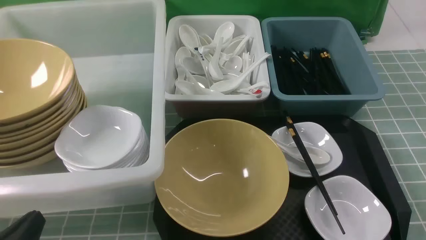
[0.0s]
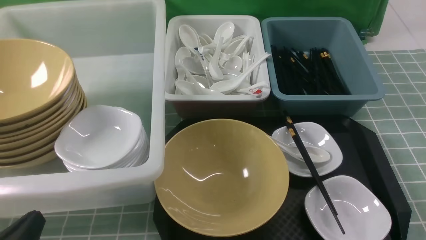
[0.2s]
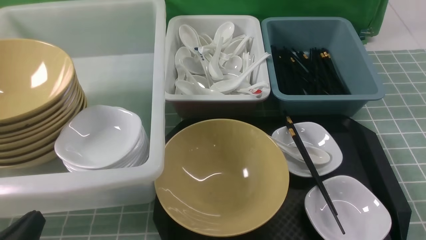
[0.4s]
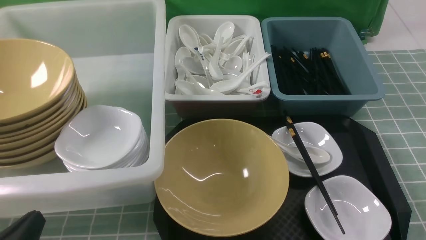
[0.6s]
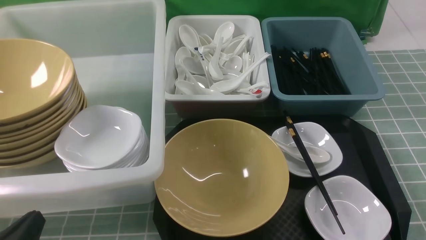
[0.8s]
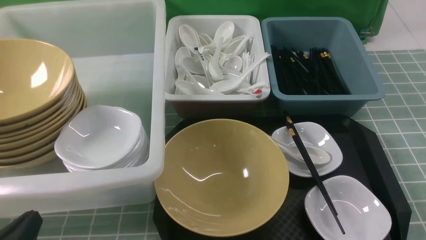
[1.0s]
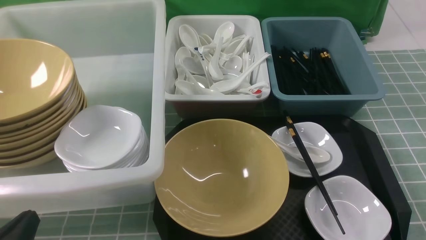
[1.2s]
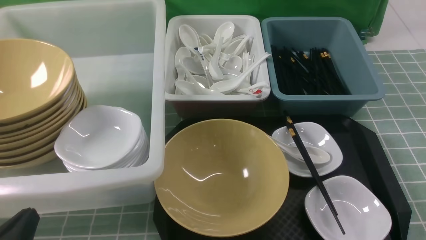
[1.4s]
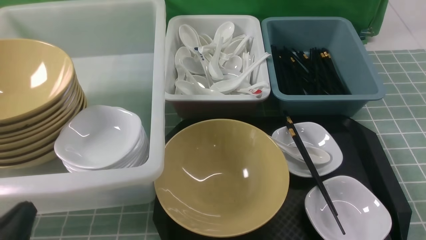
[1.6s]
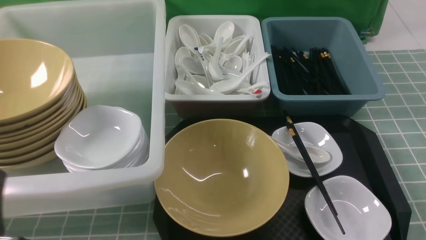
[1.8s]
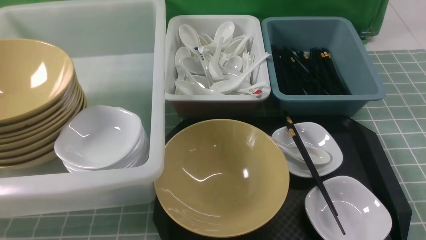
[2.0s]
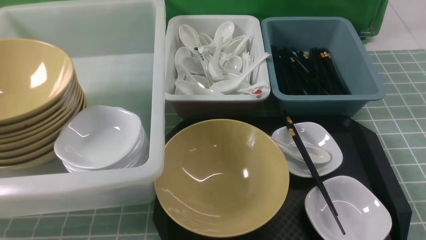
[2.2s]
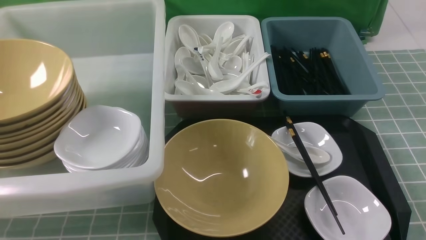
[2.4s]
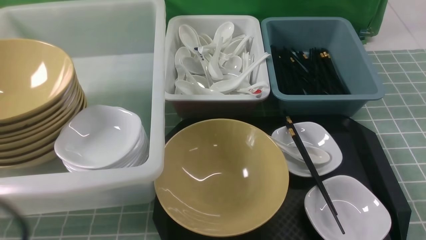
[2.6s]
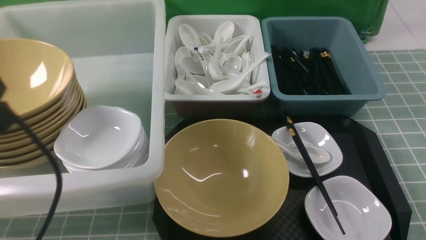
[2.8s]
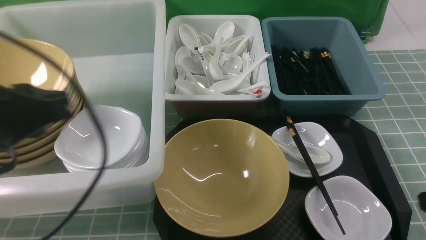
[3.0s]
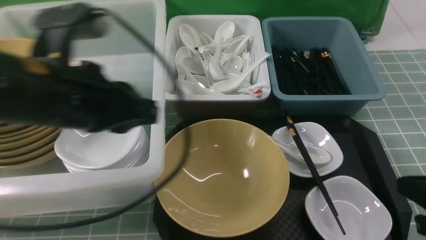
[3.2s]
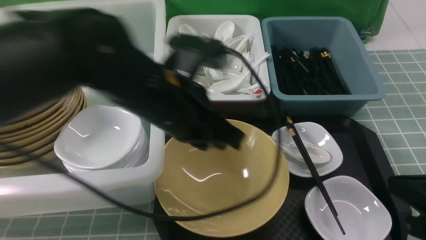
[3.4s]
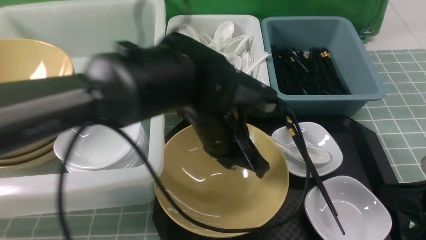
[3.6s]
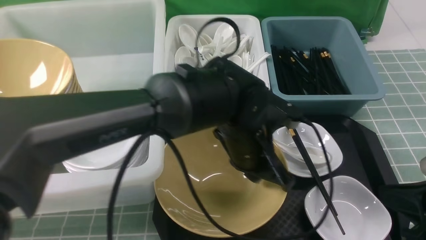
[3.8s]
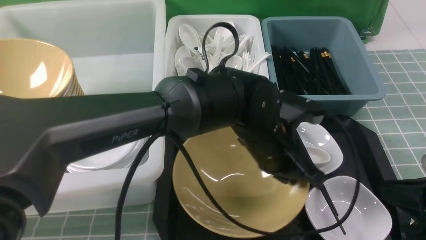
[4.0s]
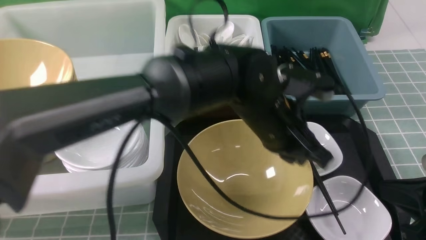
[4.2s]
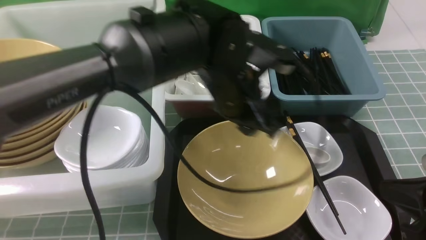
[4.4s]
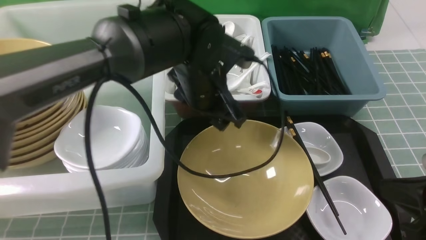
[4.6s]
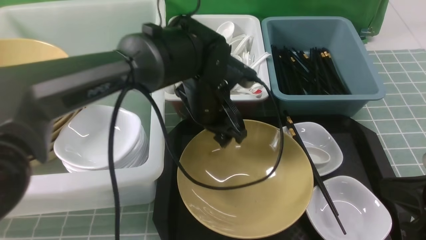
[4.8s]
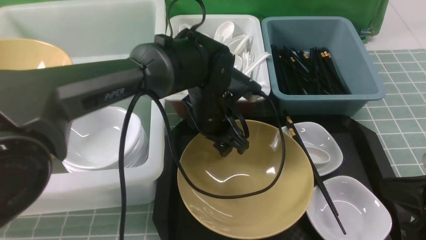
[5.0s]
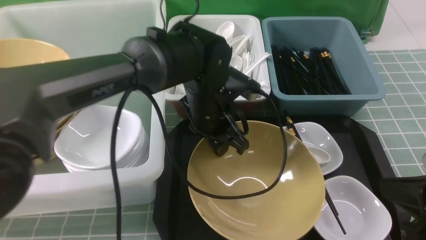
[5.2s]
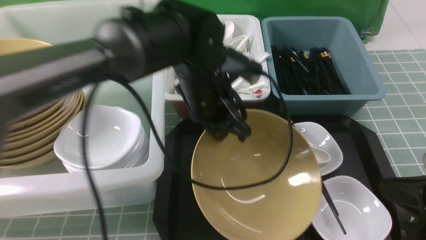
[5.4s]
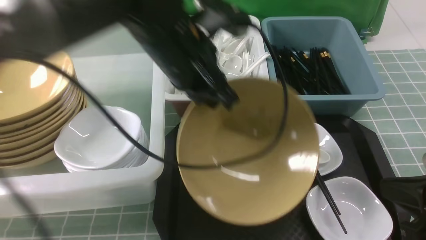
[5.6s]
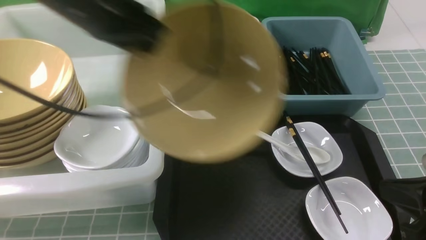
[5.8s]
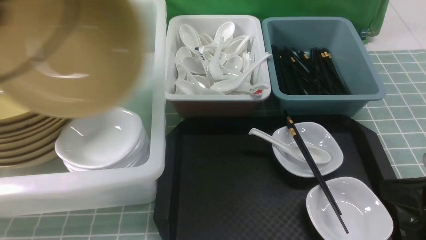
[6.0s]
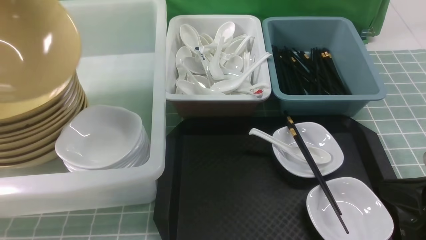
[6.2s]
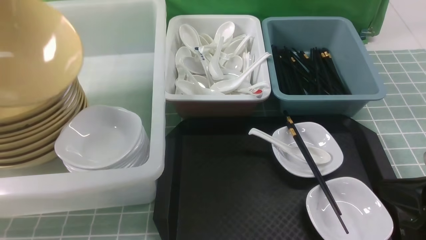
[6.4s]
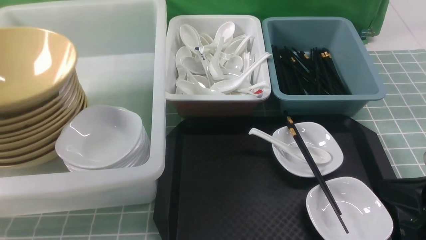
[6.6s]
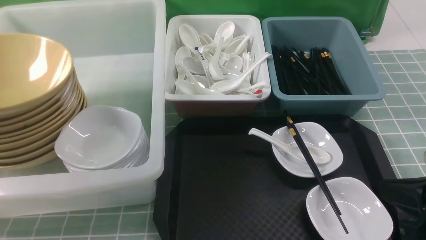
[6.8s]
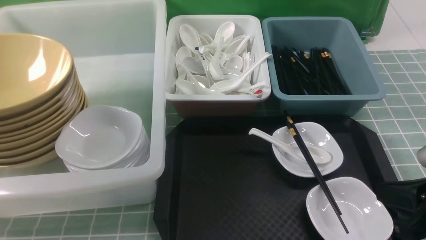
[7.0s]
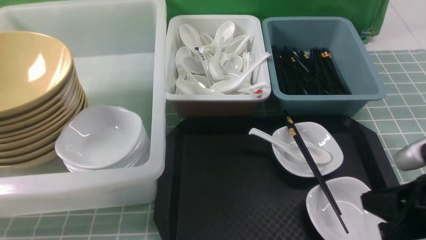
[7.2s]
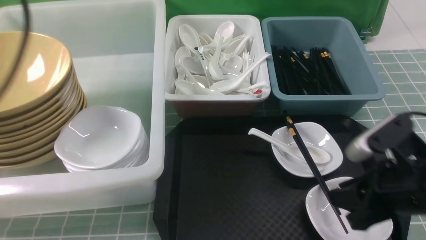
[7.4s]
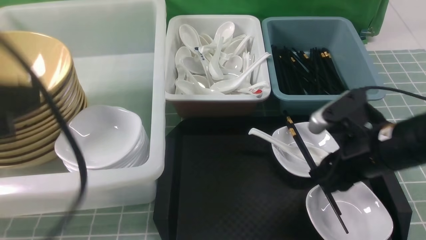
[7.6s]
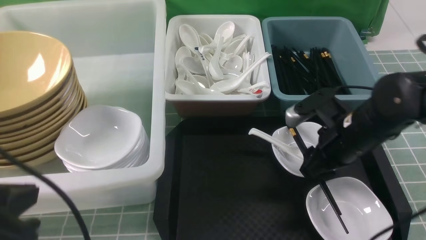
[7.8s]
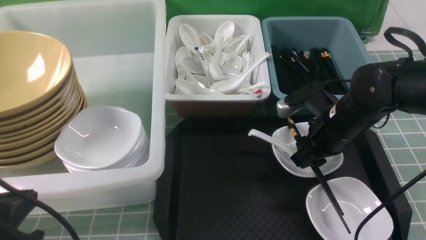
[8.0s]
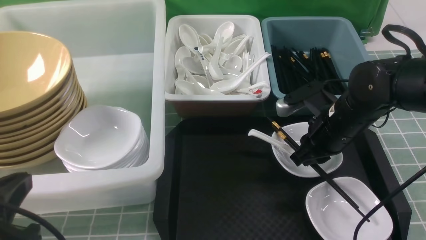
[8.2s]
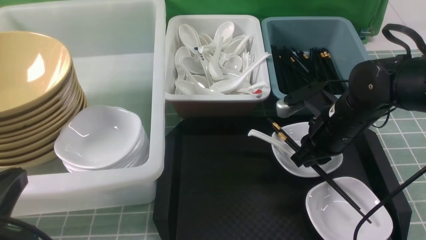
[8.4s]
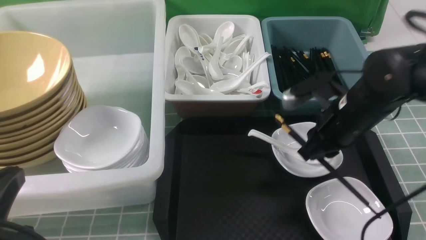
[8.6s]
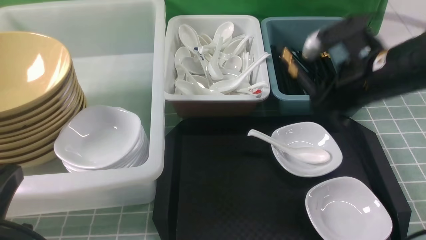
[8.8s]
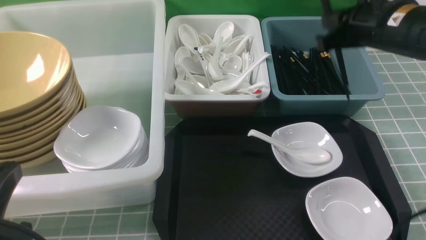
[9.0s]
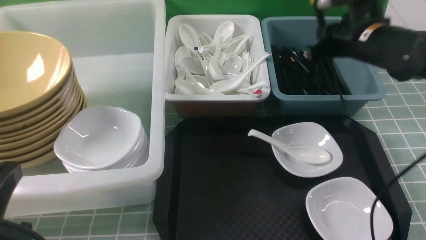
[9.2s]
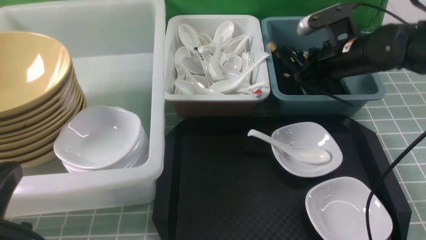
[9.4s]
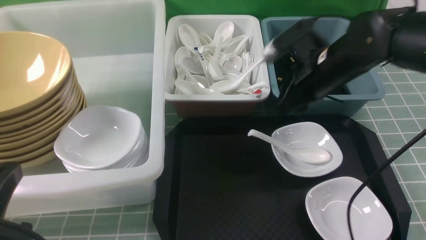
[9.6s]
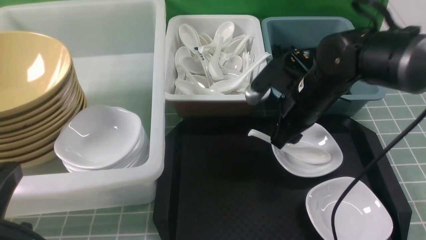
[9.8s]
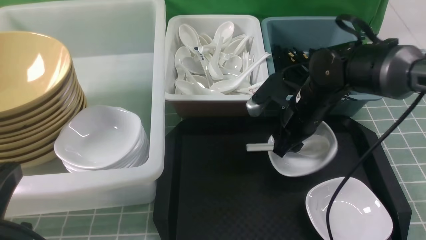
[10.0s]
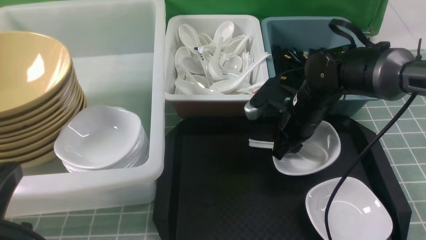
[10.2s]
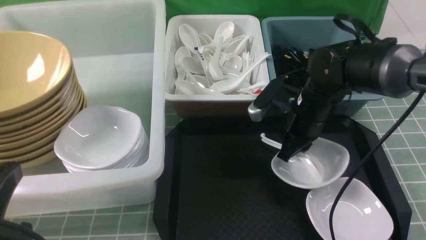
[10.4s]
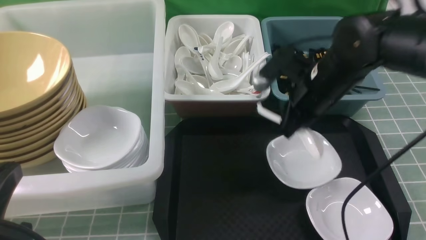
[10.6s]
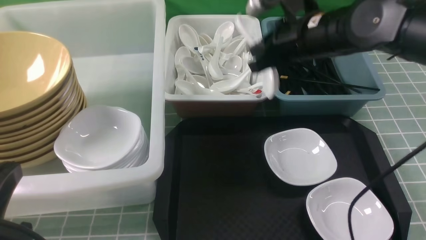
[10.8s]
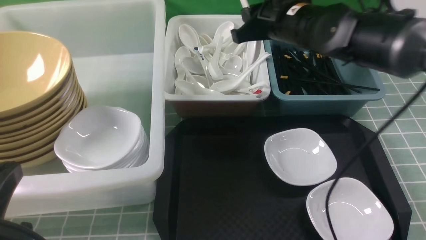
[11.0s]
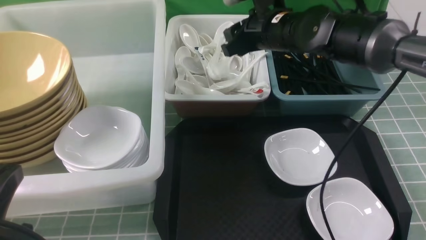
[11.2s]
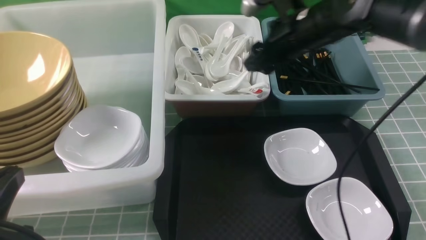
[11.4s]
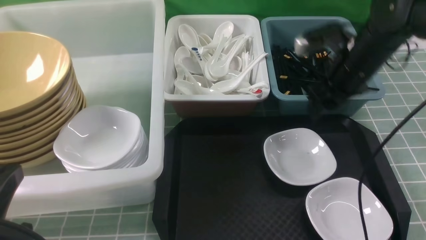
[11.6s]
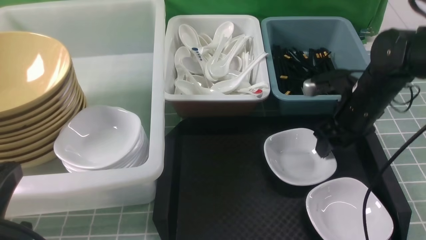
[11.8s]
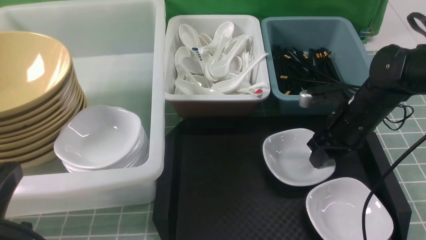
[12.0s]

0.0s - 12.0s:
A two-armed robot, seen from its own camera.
Task of the whole recording: on blue table put chopsticks spoon bowls plates into blue grey white boxes.
Step, 0.0s - 5.2s: use the left arm to grab the yellow noodle bowl on the left.
Step, 5.4s - 6.8s: use the left arm to put the noodle bowl into the large storage box on the left.
Step, 7.2s - 8.4s: use the right arm to grab the chopsticks.
Step, 8.6s - 9.6s: use the right arm to put the chopsticks into the small storage box on the right.
Step, 9.8s - 10.6s: use the right arm to grab the soup spoon in the middle.
Step, 11.0s - 11.2s: use the right arm to put the soup spoon into the small storage box in the middle.
1.6s - 3.0s: The right gripper goes approximately 10 cm forward and upward, and closes up; the left gripper is displaced upward and forward by about 20 cm.
3.0s - 4.4s: The left gripper shifts about 25 cm to the right and forward, and opens.
4.4s - 6.0s: The left gripper shifts roughly 35 cm to the left and upward, and closes up.
6.0s - 7.6s: The left gripper heads backward and to the right, covering about 15 cm, and opens, then closes again; the right gripper shifts roughly 15 cm forward and to the left, and opens up.
7.6s - 9.0s: The left gripper travels downward and backward by some 10 cm. The right gripper heads forward and upward, covering about 15 cm, and closes.
9.0s - 10.4s: The right gripper shifts approximately 10 cm downward and to the left, and opens and closes again.
10.4s - 12.0s: The right gripper goes some 10 cm to the right, and opens up.

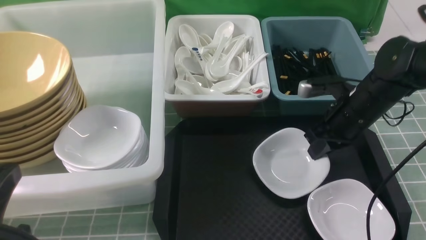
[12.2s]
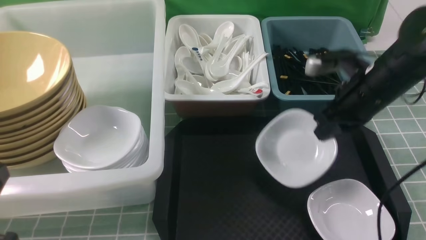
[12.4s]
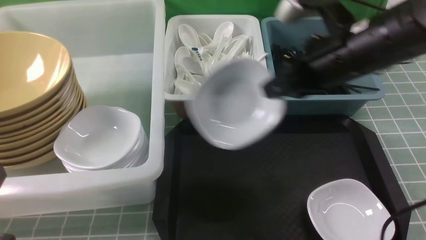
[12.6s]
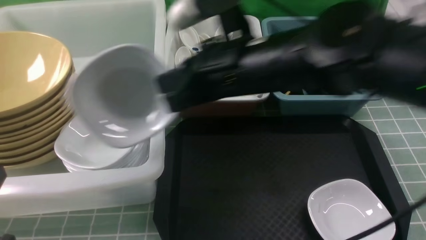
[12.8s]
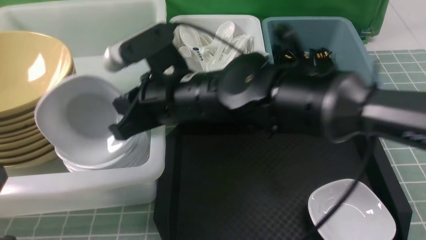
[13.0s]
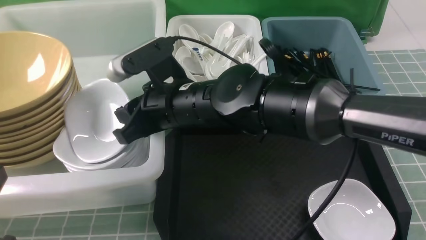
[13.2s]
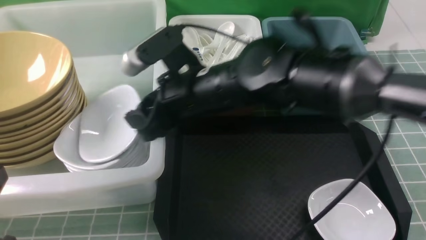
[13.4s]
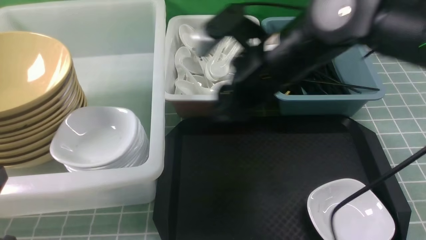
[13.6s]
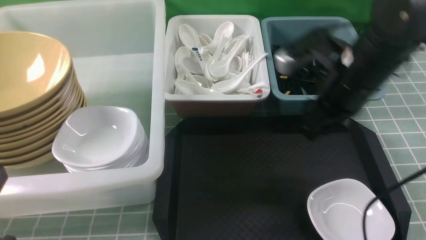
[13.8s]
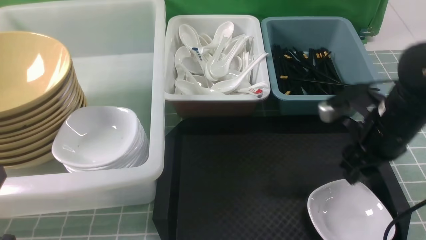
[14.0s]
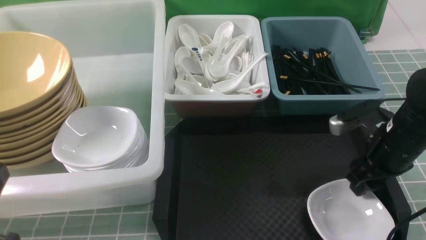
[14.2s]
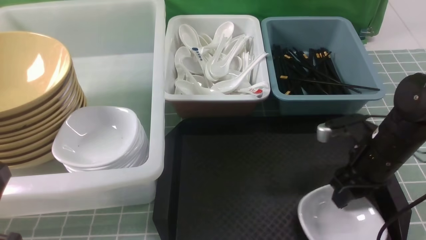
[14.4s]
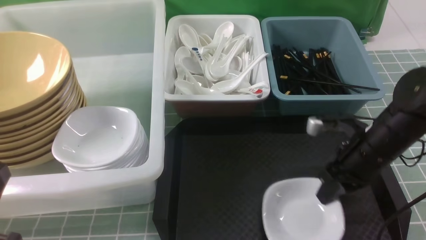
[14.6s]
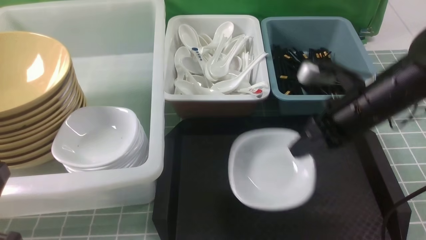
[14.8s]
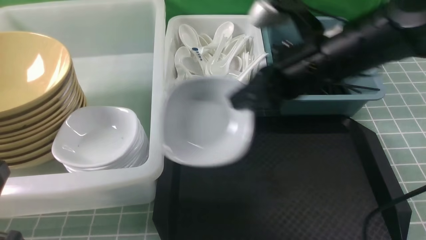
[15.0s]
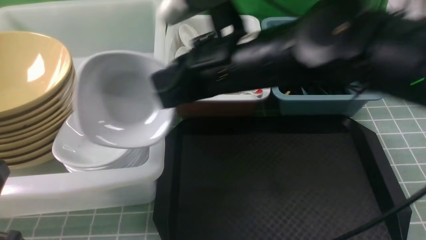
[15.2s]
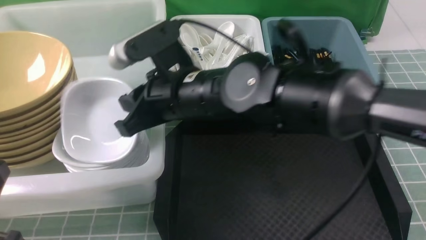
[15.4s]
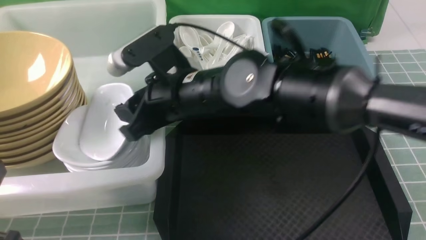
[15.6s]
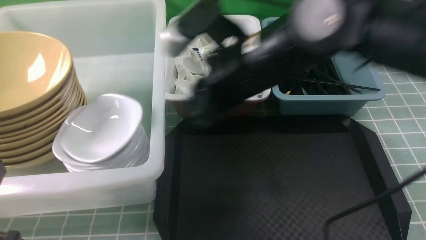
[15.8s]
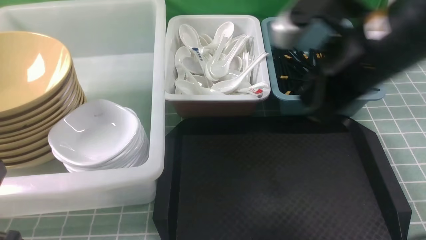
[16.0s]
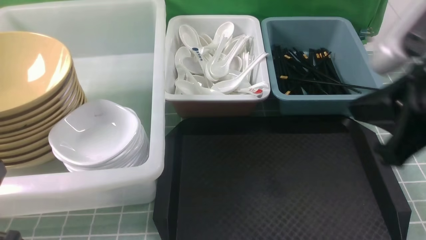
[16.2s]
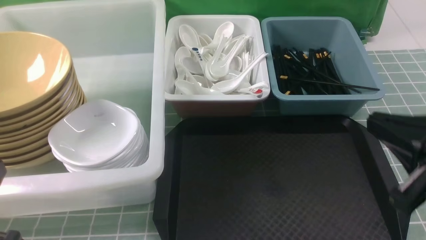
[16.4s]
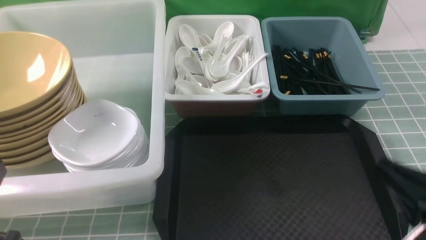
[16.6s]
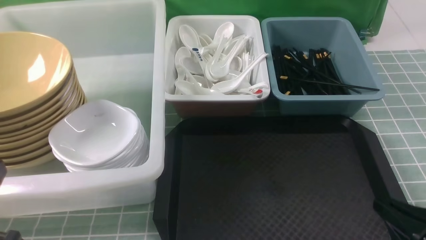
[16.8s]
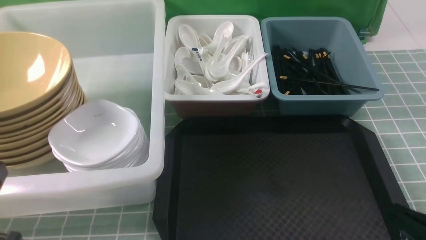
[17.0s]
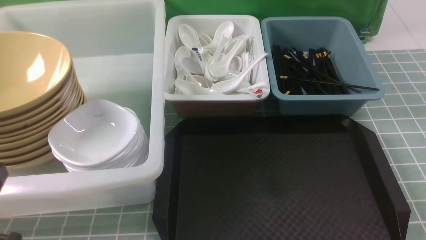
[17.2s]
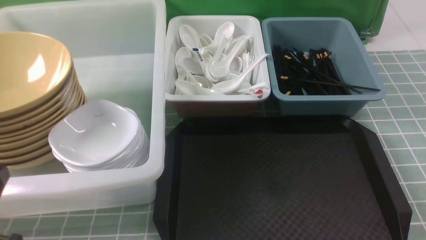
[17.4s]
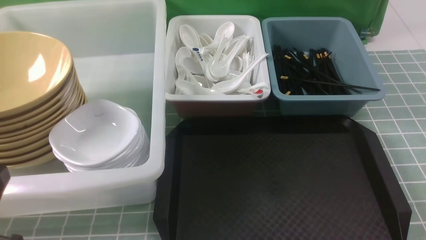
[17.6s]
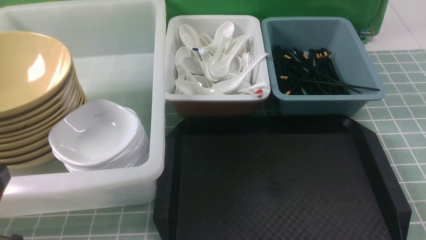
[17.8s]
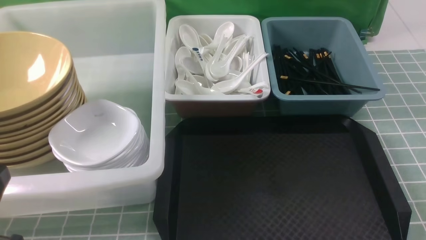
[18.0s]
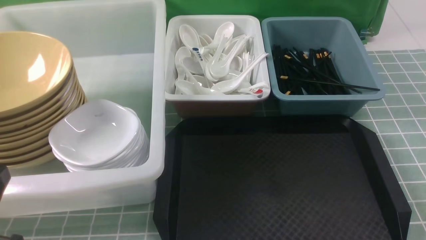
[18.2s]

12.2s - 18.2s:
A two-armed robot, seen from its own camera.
Task of the whole recording: on blue table put chopsticks spoon bowls plates into blue grey white boxes.
Step, 12.6s - 13.4s: use the right arm to put the plate into the large storage box on the left.
Step, 13.6s - 14.6s: use the right arm to grab the plate.
Step, 14.8s - 15.8s: use the right arm to put the plate into the large storage box on the left.
12.2s - 13.8s: The right gripper is displaced upward by about 5 cm, goes to the left and returns, approximately 25 cm each way, and opens up.
13.8s - 15.2s: The right gripper heads to the left, covering approximately 15 cm, and closes its fingers.
15.2s - 16.6s: The right gripper travels to the right and backward by approximately 30 cm, and opens, then closes once more.
16.6s - 18.2s: The right gripper heads to the right, downward and backward, covering roughly 10 cm.
